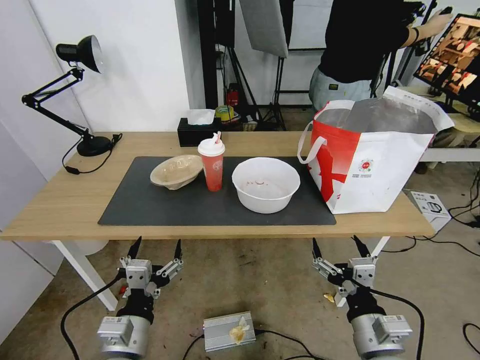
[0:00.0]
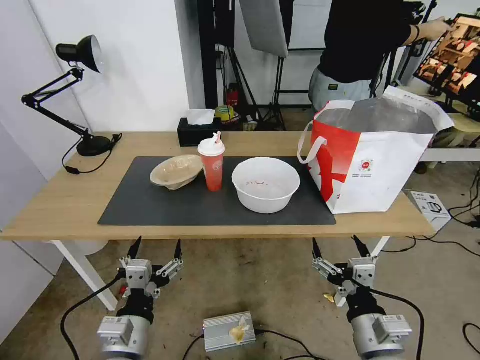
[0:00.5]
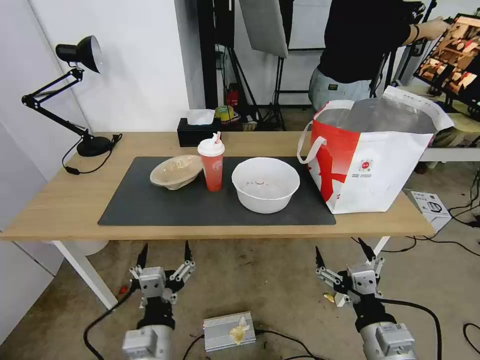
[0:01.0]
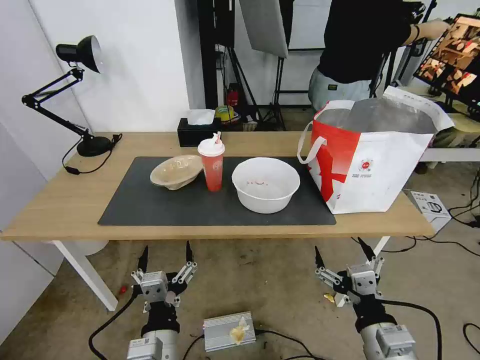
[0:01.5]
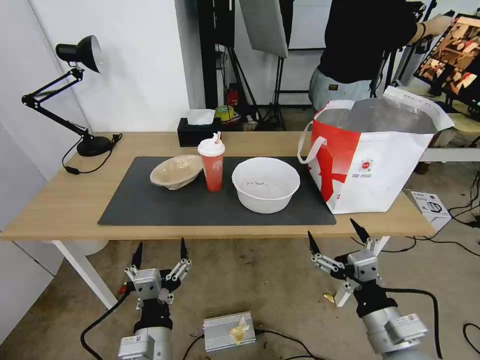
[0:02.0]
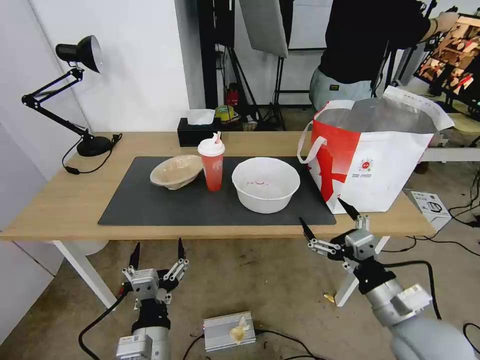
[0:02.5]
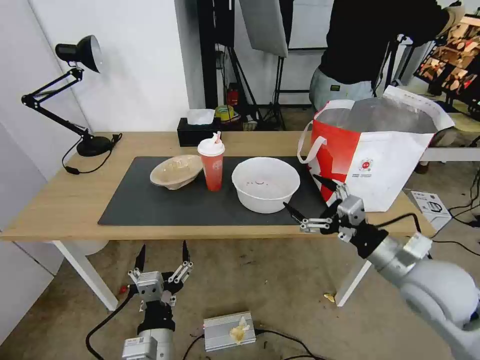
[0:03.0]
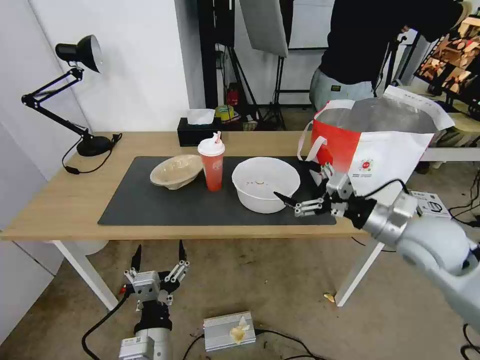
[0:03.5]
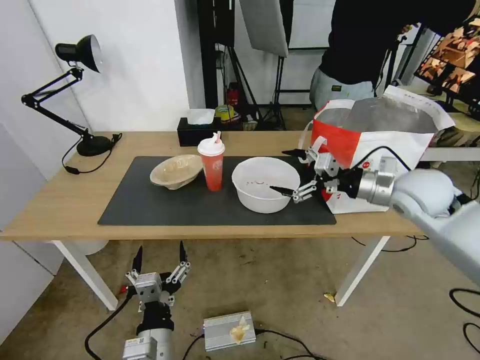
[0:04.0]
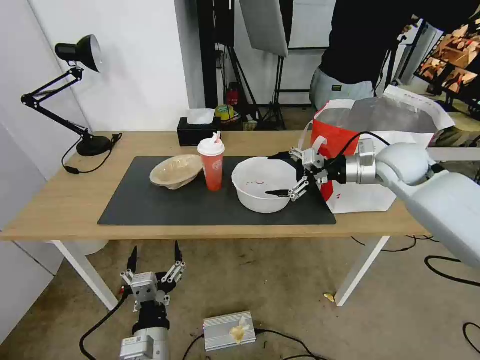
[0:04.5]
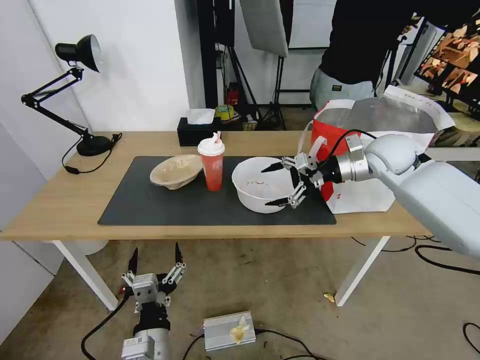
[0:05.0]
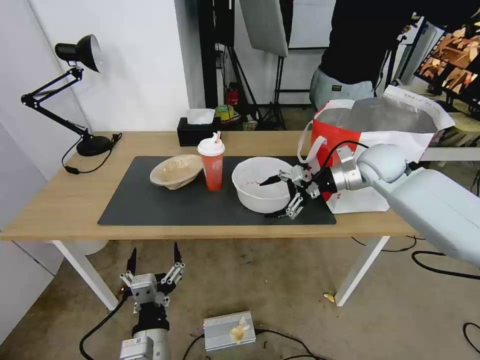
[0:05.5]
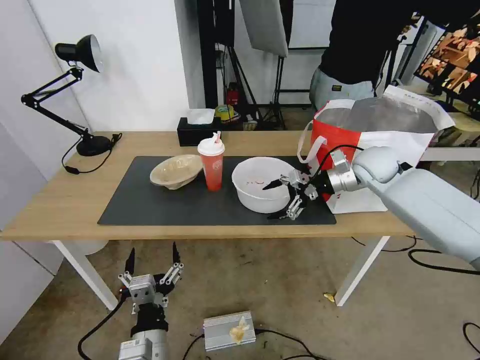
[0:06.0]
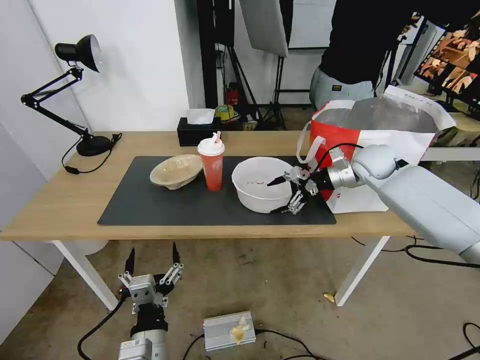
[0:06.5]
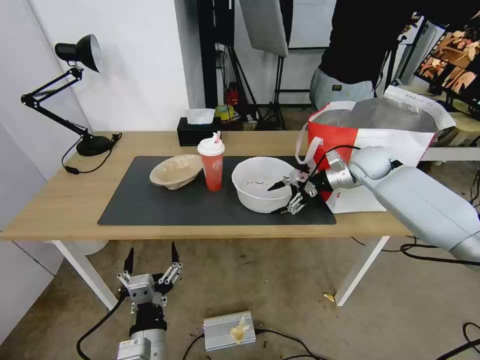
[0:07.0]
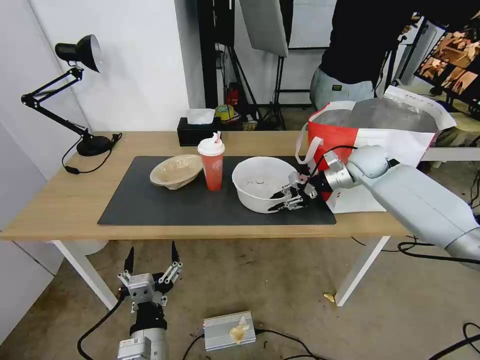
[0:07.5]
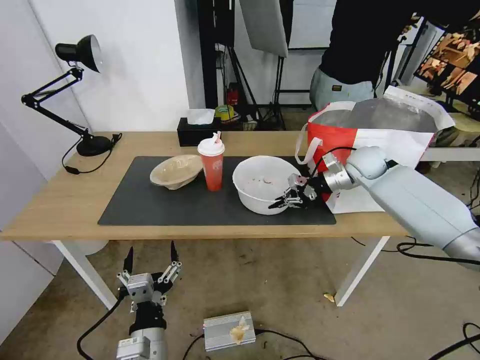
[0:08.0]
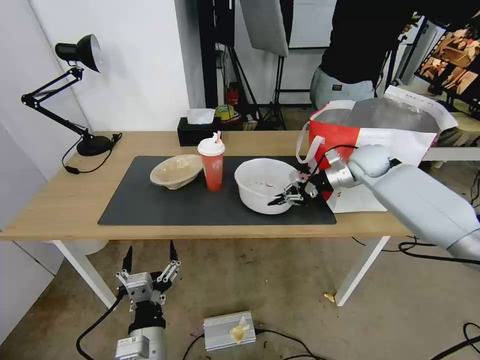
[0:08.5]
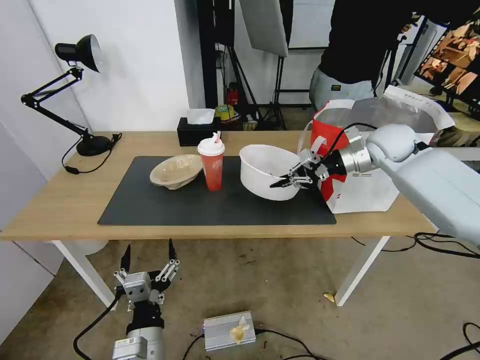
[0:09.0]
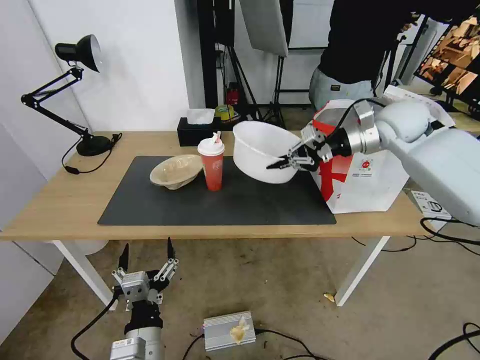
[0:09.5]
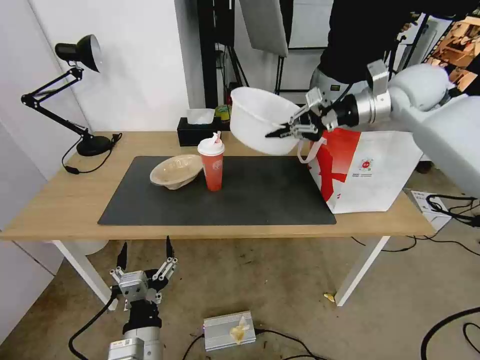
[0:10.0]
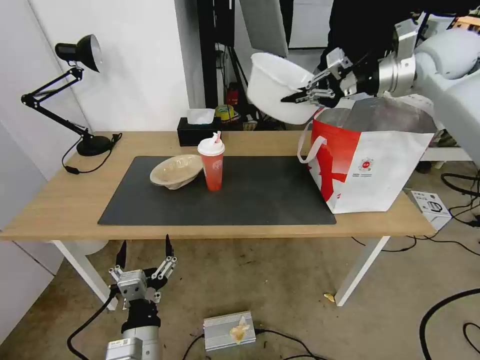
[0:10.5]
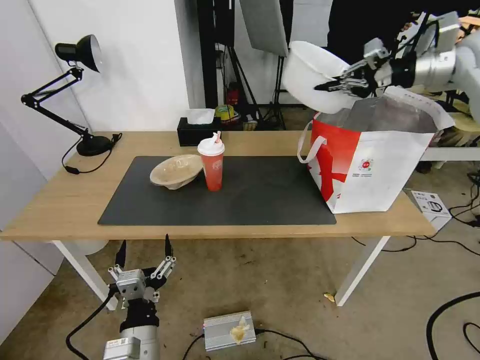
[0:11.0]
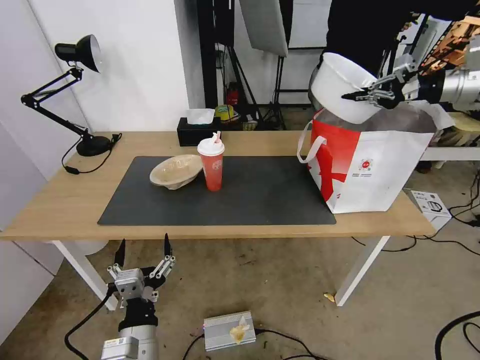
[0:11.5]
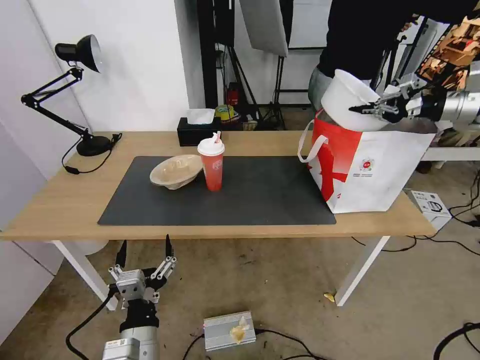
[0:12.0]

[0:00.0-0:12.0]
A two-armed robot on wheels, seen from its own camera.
Task of the whole recording: Pick up the trash from the table and place it into the takeout bag.
0:02.0 to 0:04.0: The right gripper moves forward and upward, approximately 30 cm.
0:04.0 to 0:06.0: The right gripper is displaced forward by approximately 10 cm.
0:06.0 to 0:08.0: The right gripper ends up about 5 cm from where it was, and closes up.
0:08.0 to 0:10.0: The right gripper travels upward by about 20 cm.
0:10.0 to 0:12.0: The right gripper shifts approximately 20 cm to the right.

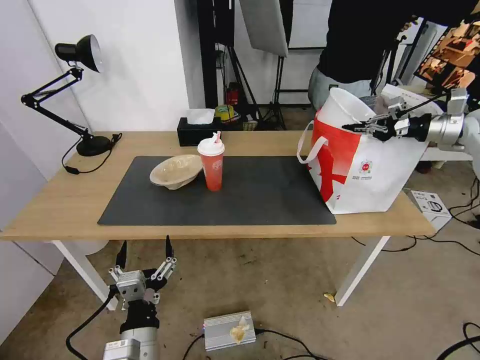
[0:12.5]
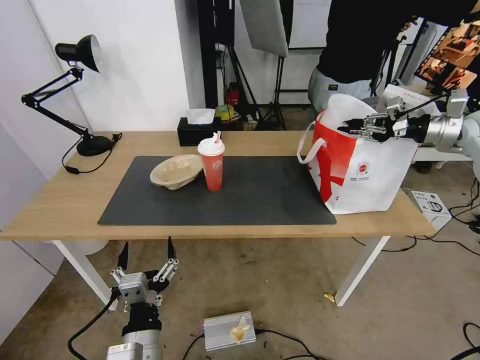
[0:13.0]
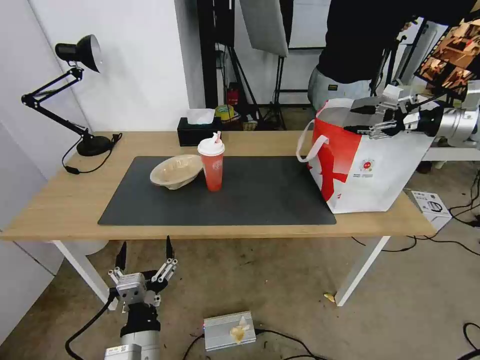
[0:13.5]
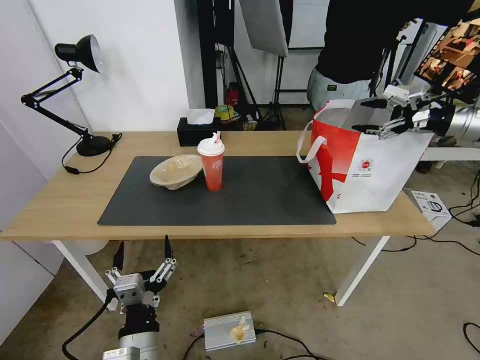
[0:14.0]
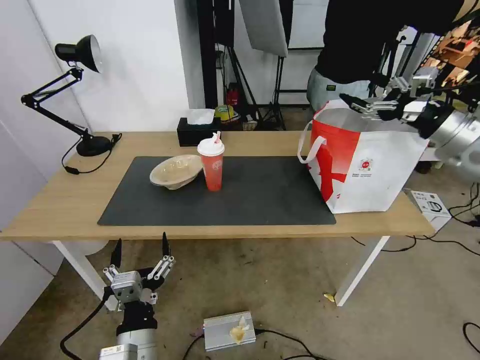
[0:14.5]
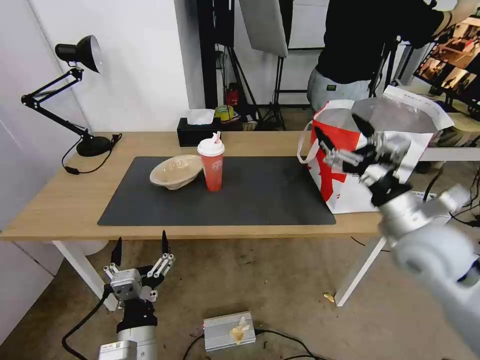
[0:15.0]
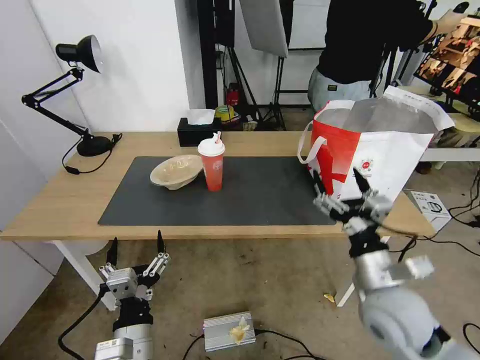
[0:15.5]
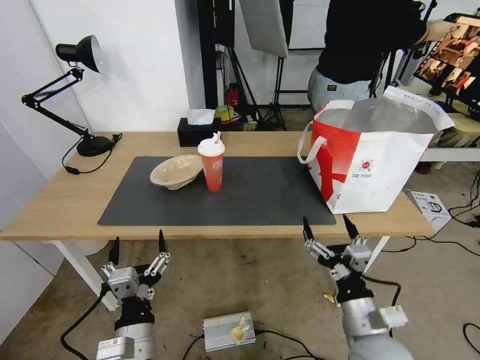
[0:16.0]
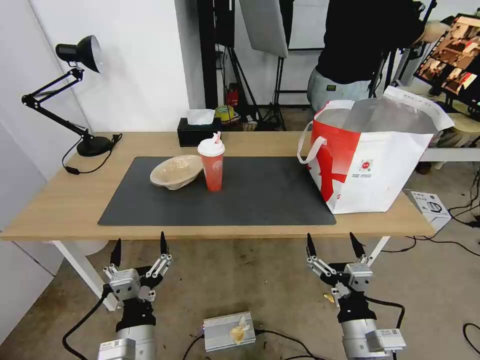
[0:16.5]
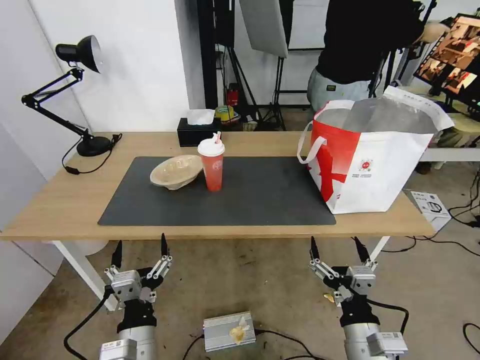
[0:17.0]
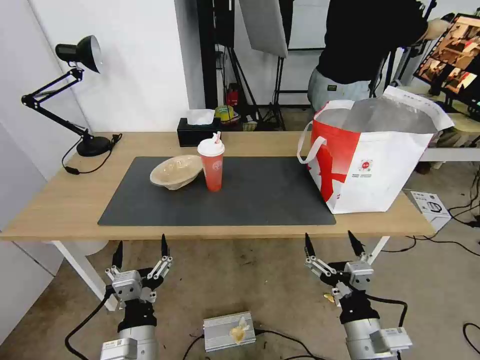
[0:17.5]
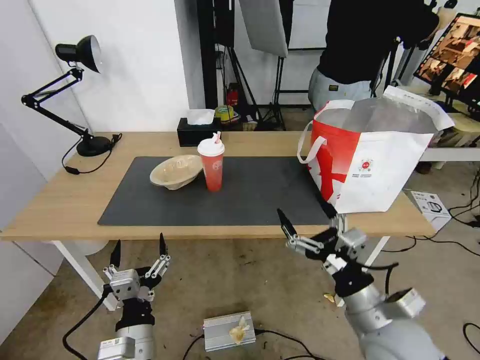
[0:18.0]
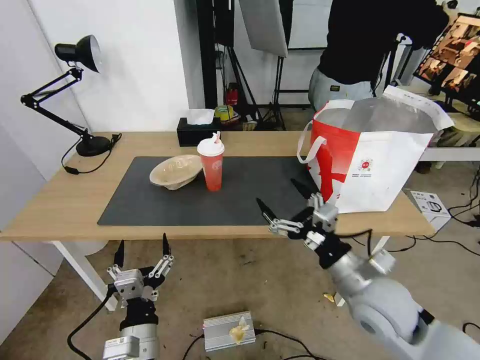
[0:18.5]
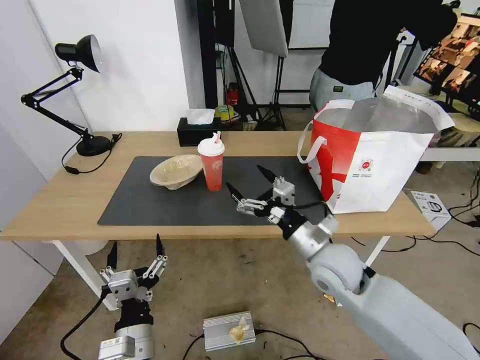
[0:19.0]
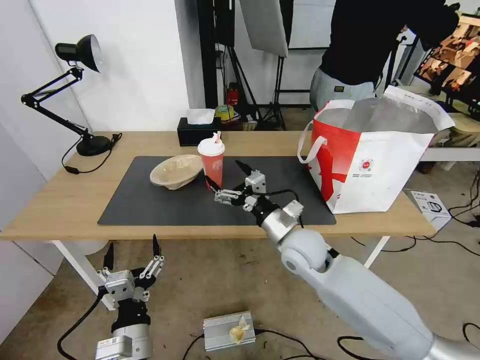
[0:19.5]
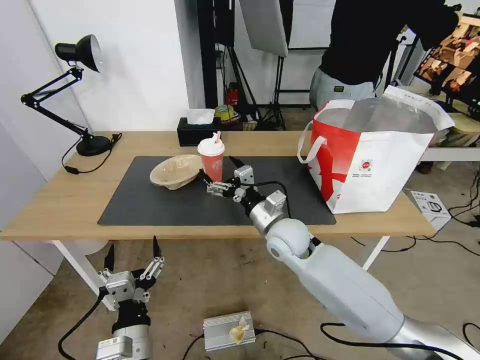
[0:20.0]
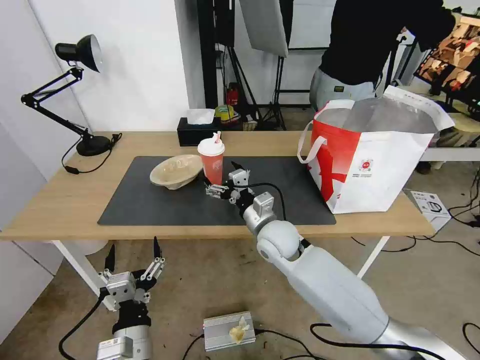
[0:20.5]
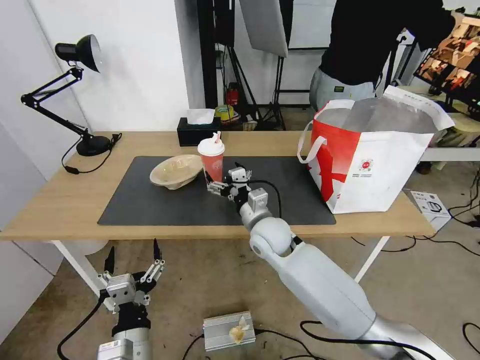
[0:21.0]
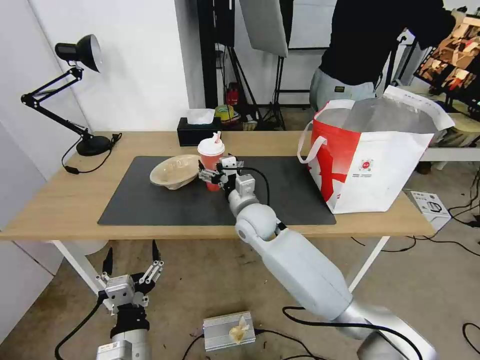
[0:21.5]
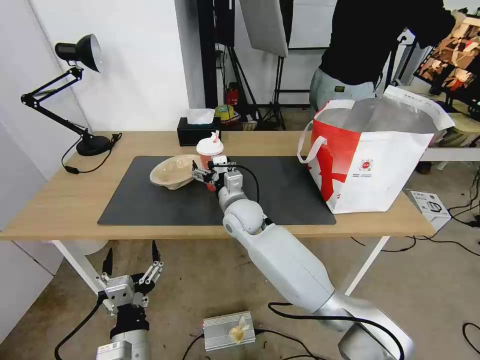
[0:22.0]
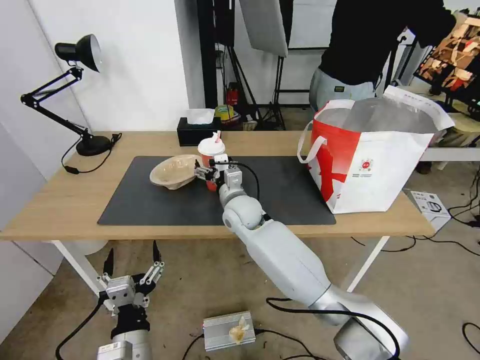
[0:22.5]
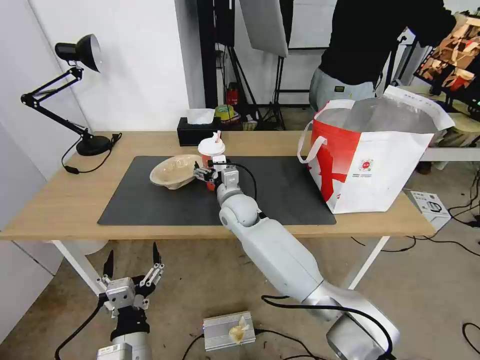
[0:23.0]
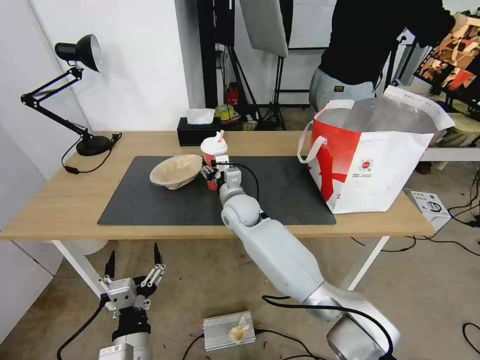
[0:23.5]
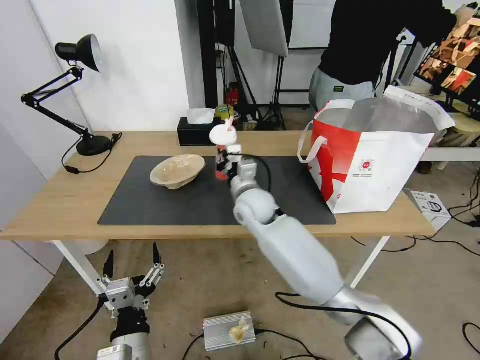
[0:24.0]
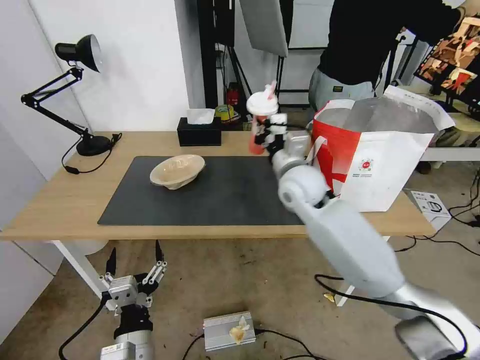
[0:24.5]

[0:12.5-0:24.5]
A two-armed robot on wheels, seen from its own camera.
Task of the whole recording: Pick up the trash from the table and place it into the takeout bag.
0:12.5 to 0:14.5: The right gripper moves backward and to the left, about 15 cm, and opens its fingers.
0:14.5 to 0:16.5: The right gripper shifts roughly 50 cm backward, downward and to the left.
0:16.5 to 0:18.5: The right gripper heads forward and upward, covering about 15 cm.
0:18.5 to 0:20.5: The right gripper heads forward and to the left, covering approximately 25 cm.
0:20.5 to 0:22.5: The right gripper heads to the left and forward, covering about 10 cm.
0:22.5 to 0:24.5: The right gripper is displaced to the right and upward by roughly 15 cm, and closes.

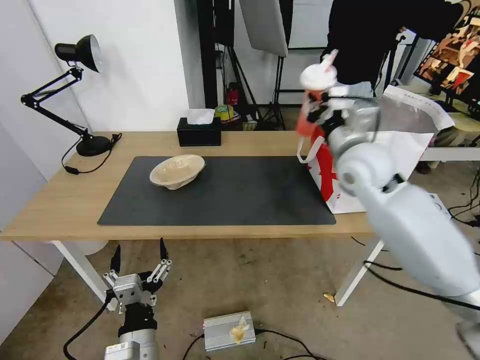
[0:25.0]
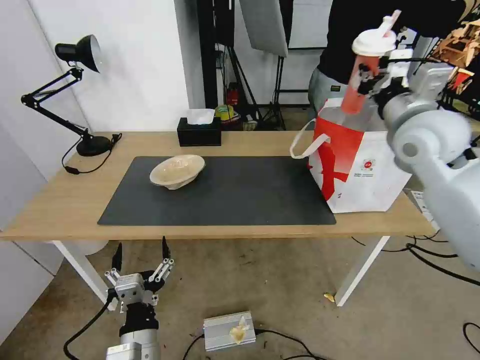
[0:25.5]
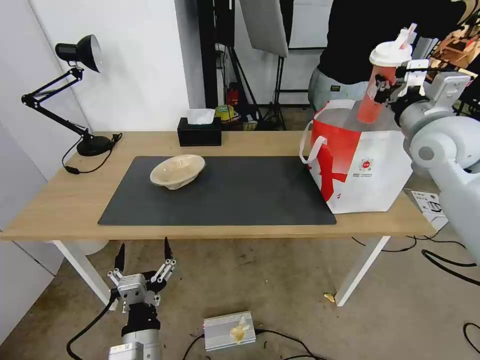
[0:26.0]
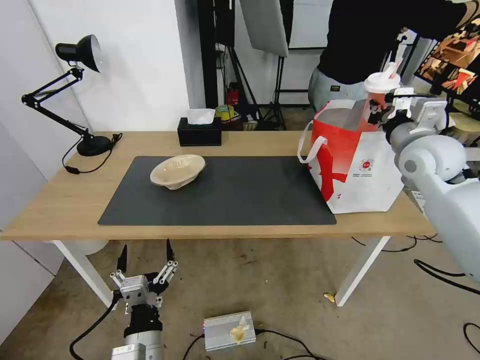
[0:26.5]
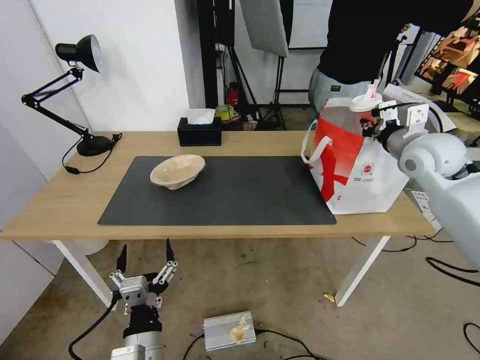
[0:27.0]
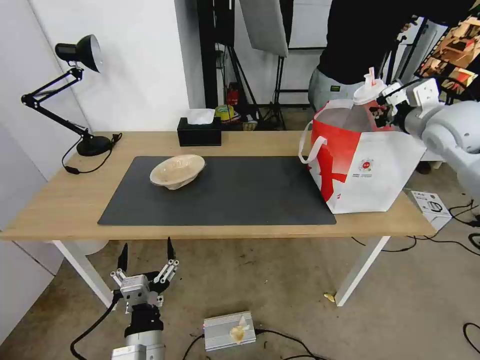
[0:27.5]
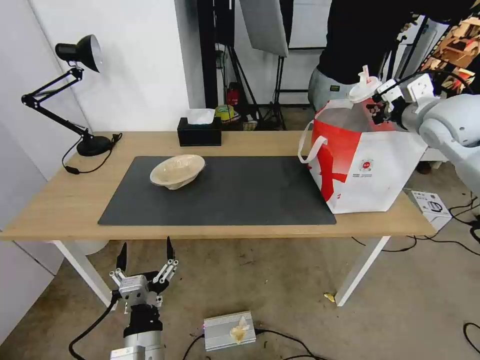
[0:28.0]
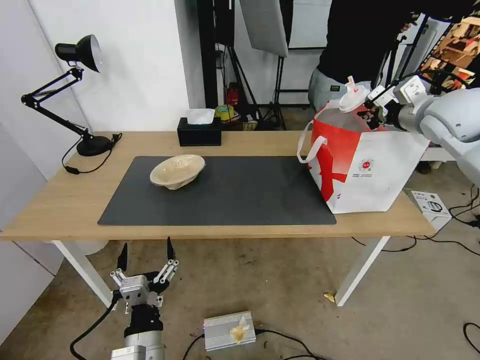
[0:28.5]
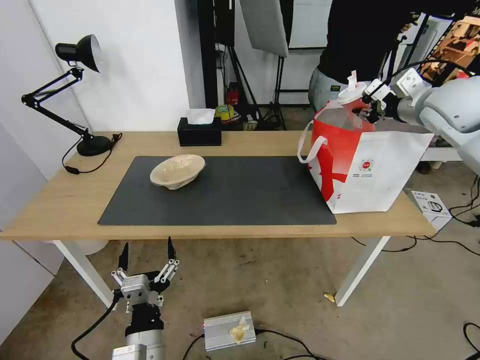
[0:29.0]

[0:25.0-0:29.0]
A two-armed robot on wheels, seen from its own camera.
Task of the whole recording: Pick up the trash from the table and place it into the takeout bag.
0:25.0 to 0:27.0: The right gripper is displaced to the right by some 15 cm.
0:27.0 to 0:29.0: The right gripper is displaced upward by about 10 cm.
